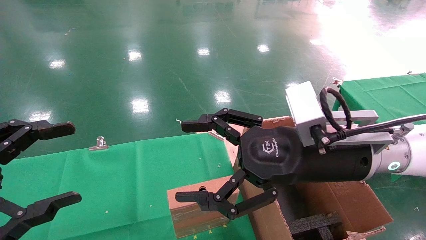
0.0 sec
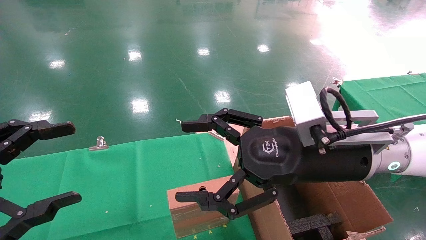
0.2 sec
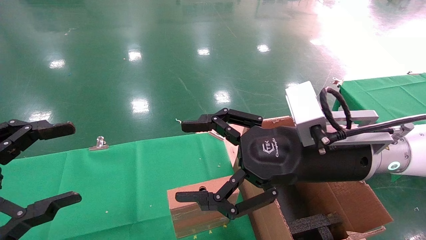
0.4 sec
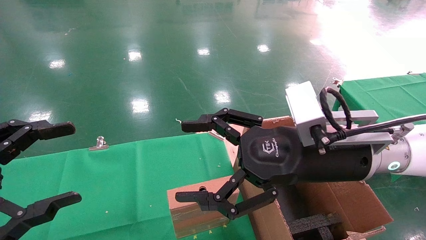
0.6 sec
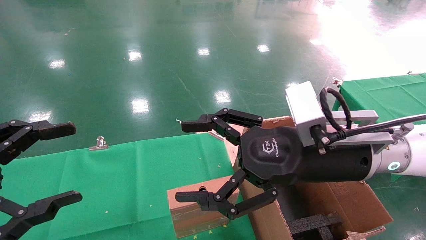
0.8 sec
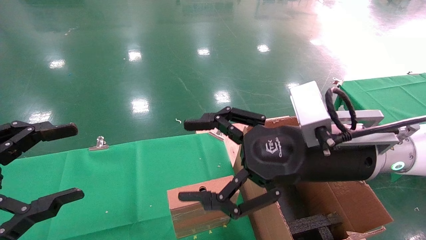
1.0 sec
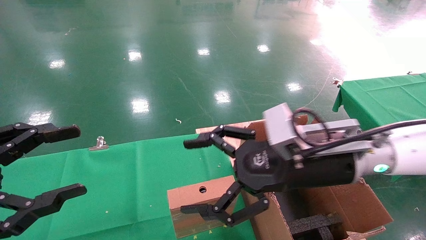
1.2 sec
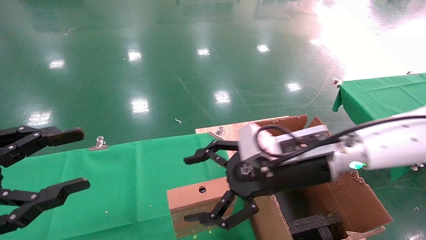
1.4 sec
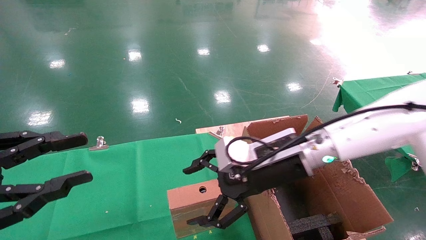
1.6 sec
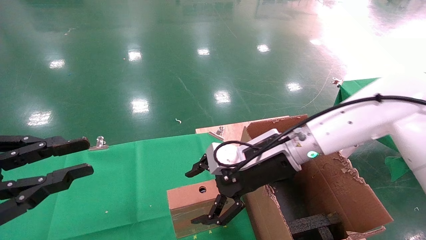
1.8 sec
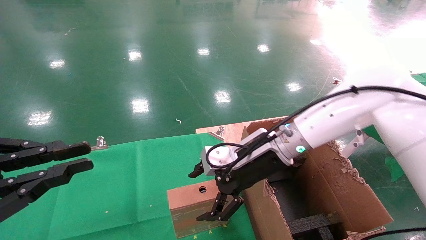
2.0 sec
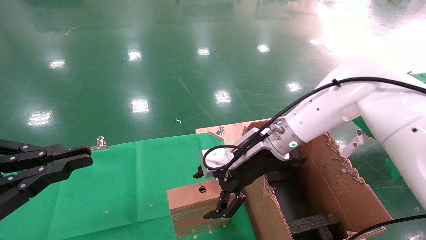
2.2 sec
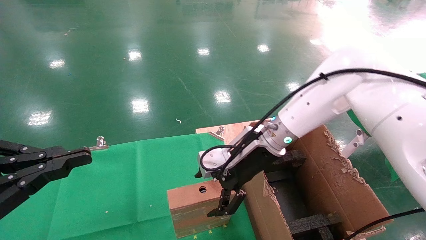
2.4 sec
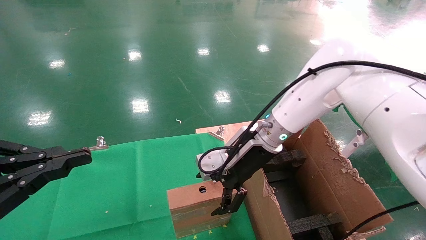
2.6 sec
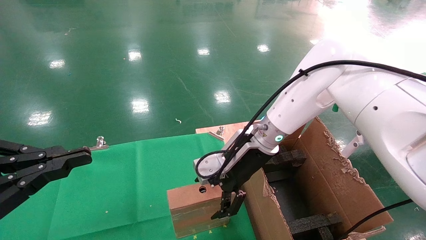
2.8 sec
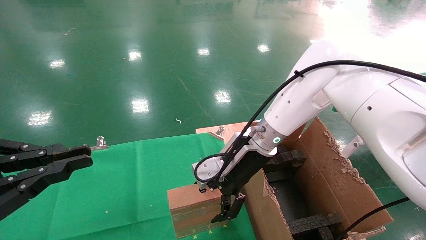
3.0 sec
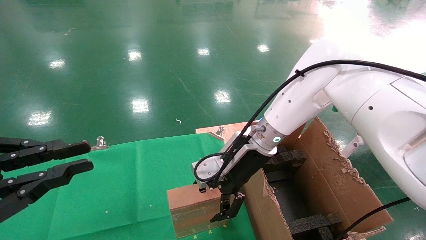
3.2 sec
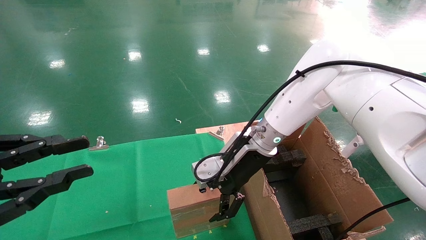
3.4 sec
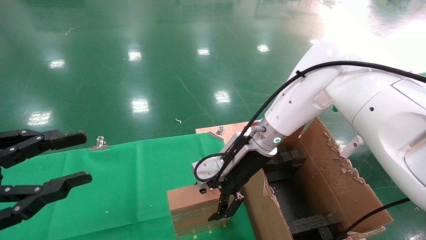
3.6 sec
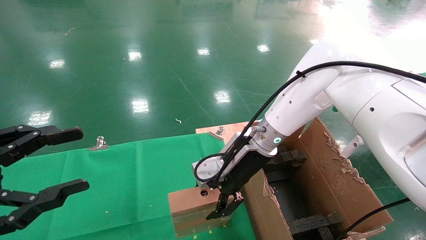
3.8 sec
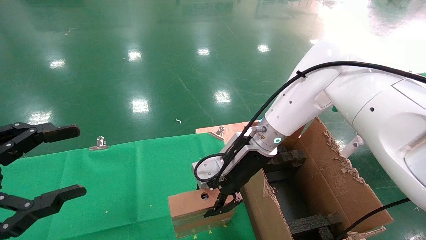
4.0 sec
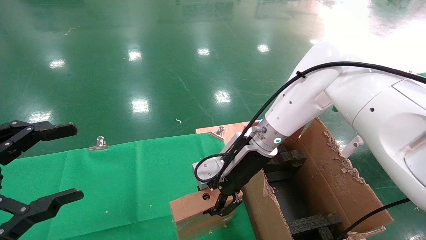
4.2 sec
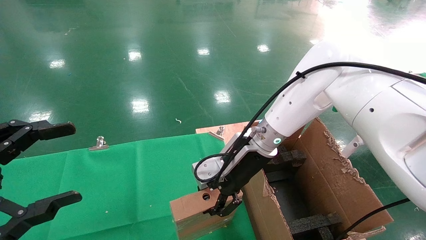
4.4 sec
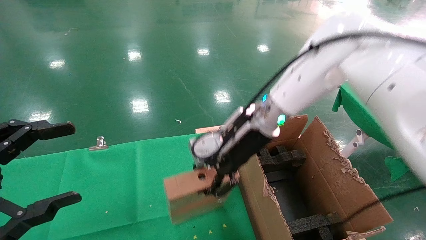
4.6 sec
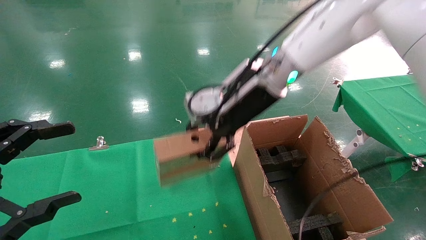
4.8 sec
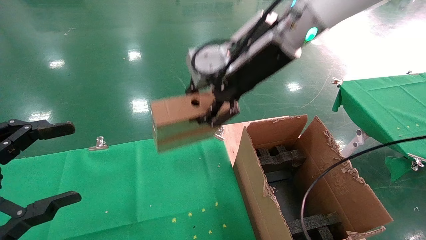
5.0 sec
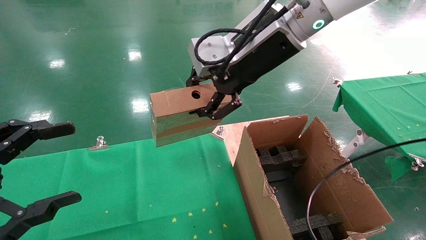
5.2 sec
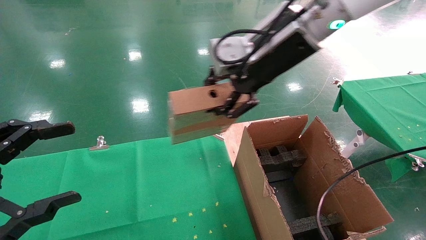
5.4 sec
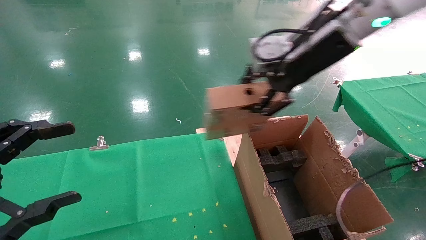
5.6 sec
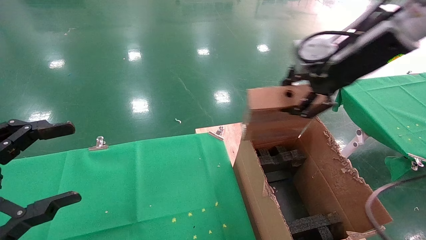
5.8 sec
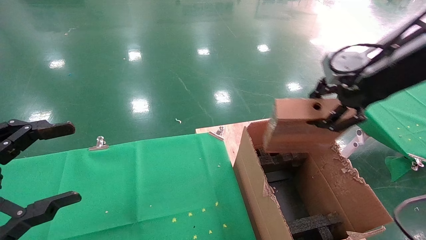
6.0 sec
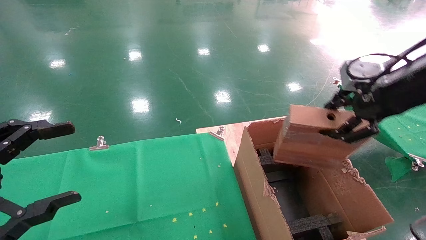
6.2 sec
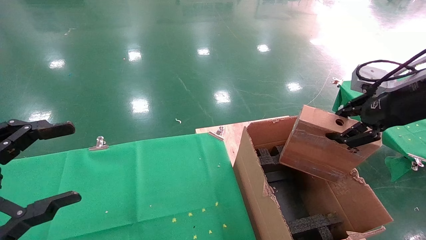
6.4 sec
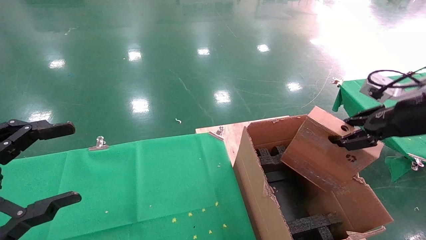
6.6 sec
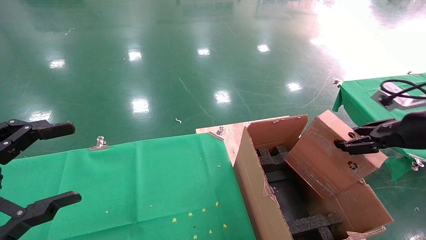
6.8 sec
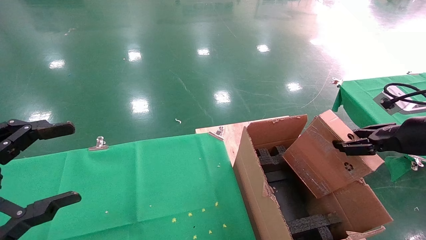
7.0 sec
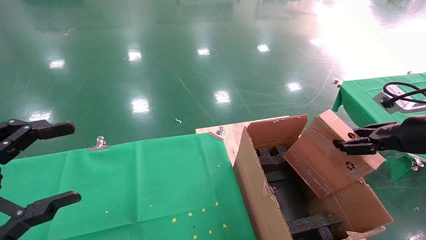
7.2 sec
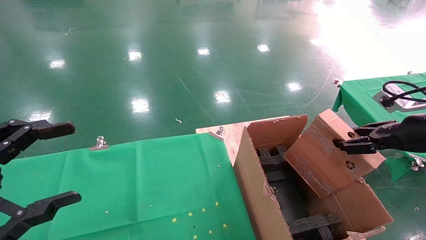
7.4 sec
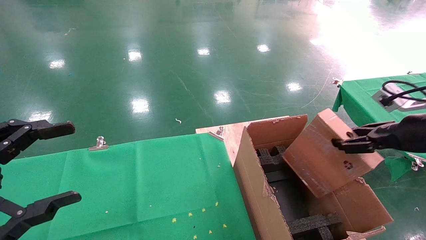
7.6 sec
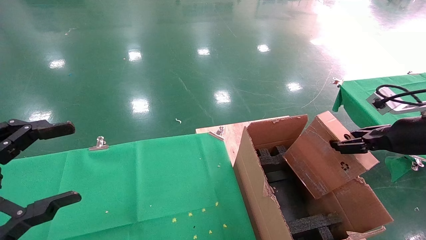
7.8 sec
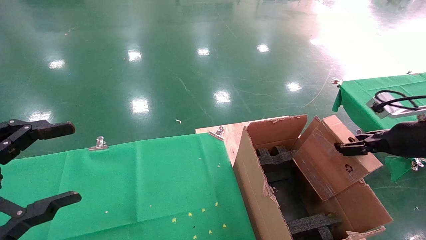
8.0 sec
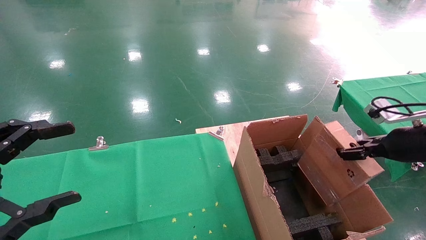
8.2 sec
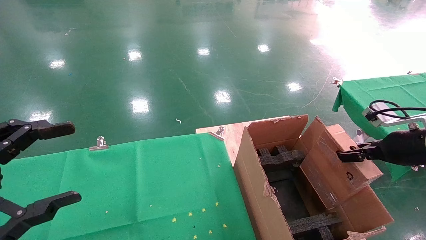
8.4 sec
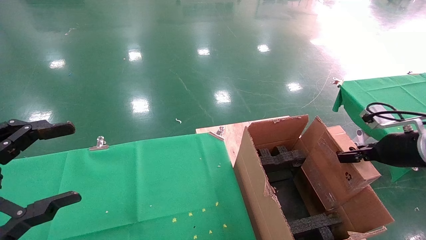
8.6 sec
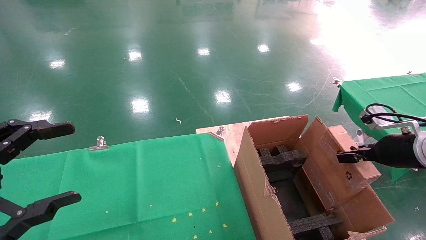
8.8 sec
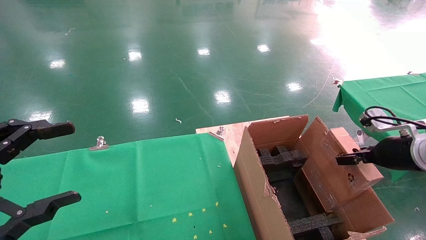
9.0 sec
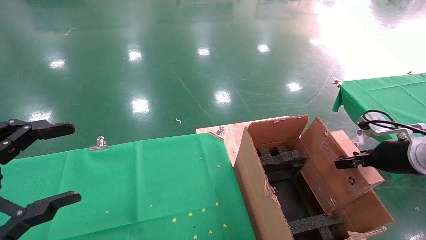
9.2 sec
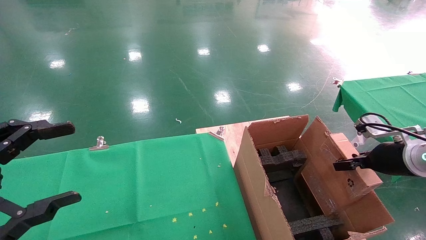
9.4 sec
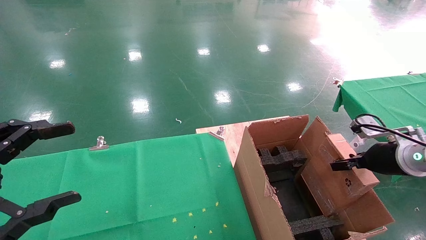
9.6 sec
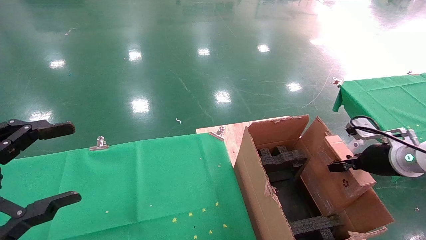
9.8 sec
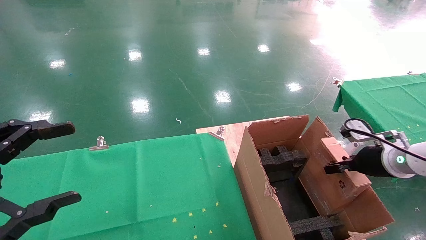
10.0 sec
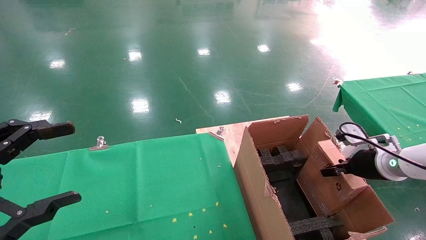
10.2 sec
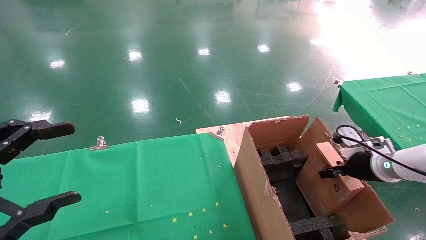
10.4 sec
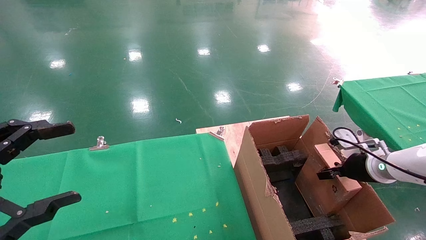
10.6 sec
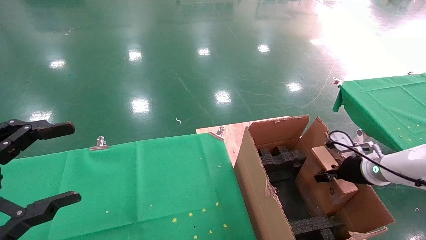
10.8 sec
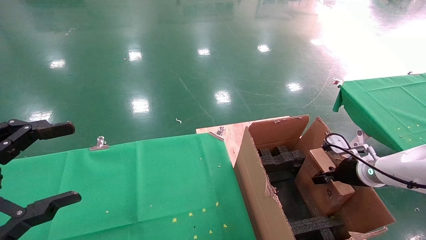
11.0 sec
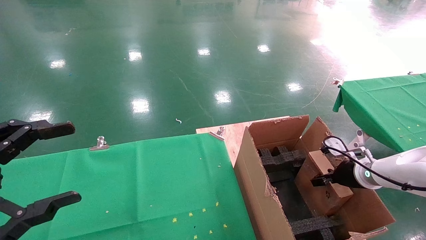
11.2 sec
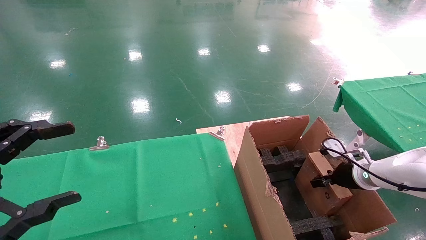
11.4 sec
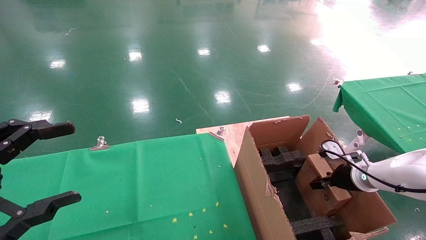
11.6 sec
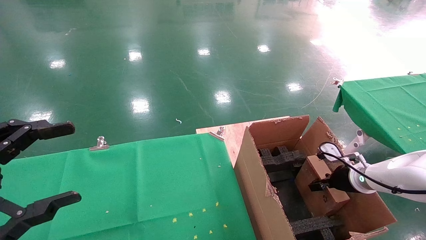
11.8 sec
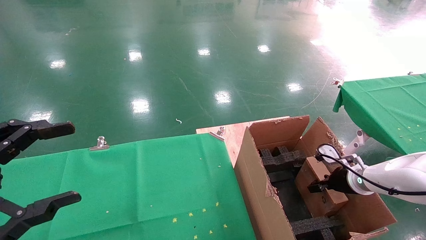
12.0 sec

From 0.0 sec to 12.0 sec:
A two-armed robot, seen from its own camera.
Task of the whole recording: using a robotic arm to pick up a cardboard box and palace it the carton.
Step, from 1.2 sec to 4.2 sec: Pick up the mouse and the power cord paper box.
From 0.0 sec to 1.6 sec: The right gripper moves forward, roughly 10 cm. Meanwhile the left gripper closes.
From 1.6 sec to 3.0 sec: The right gripper moves forward, approximately 5 cm. The left gripper closes its fingers.
From 3.0 sec to 4.4 sec: The left gripper opens up. Meanwhile the right gripper closes up.
From 4.4 sec to 6.0 sec: The right gripper is displaced to the right, upward and backward by some 30 cm.
From 6.0 sec to 7.6 sec: The right gripper shifts approximately 20 cm downward and to the right.
From 7.6 sec to 9.0 sec: The right gripper goes approximately 5 cm downward.
From 9.0 sec to 10.4 sec: The right gripper moves downward and forward, about 10 cm.
From 10.4 sec to 12.0 sec: The right gripper shifts some 5 cm downward.

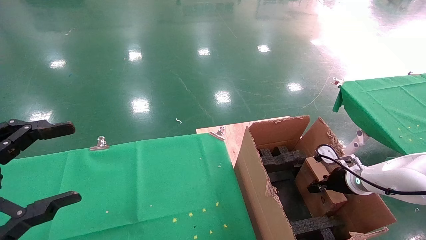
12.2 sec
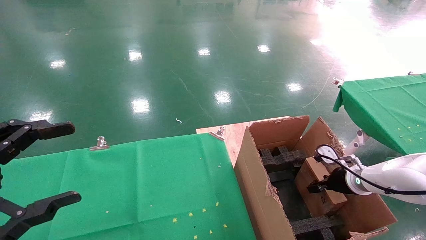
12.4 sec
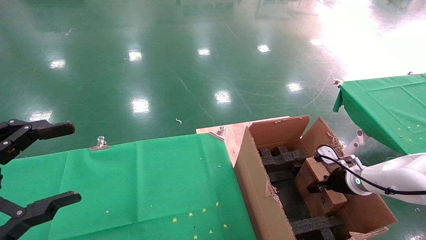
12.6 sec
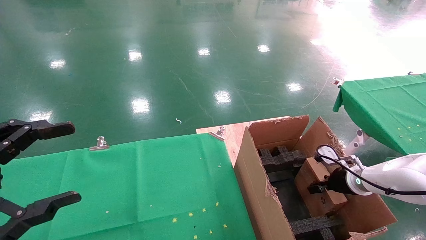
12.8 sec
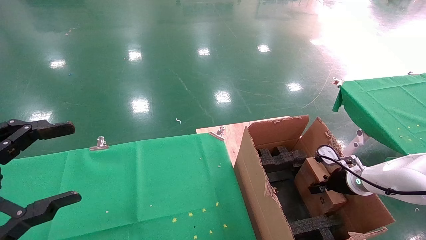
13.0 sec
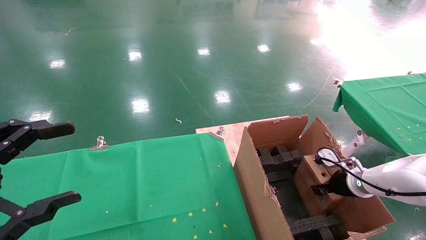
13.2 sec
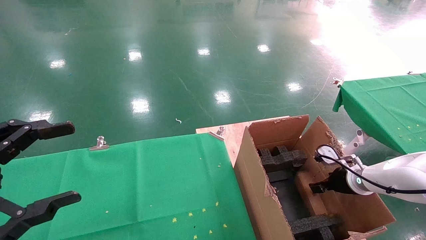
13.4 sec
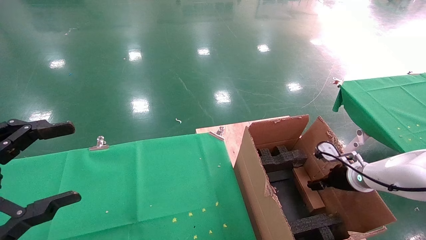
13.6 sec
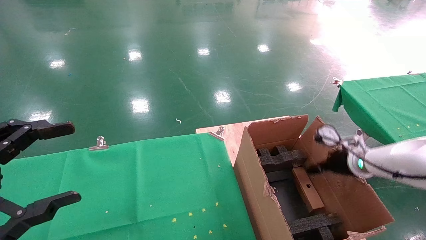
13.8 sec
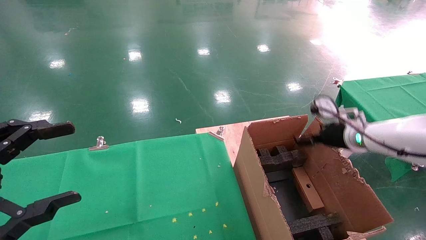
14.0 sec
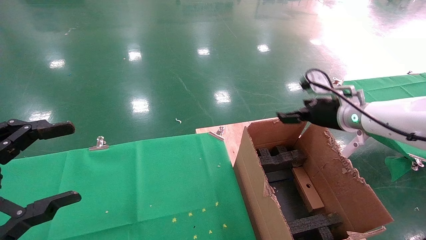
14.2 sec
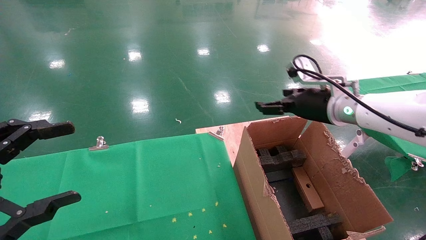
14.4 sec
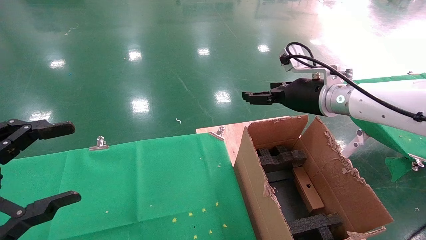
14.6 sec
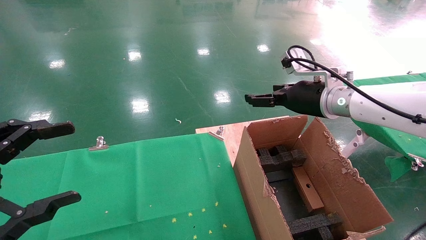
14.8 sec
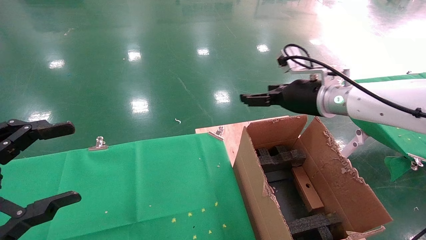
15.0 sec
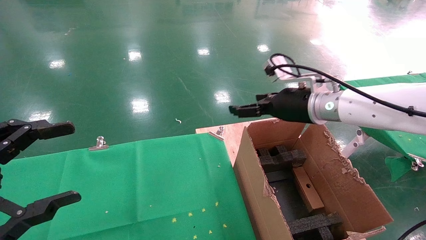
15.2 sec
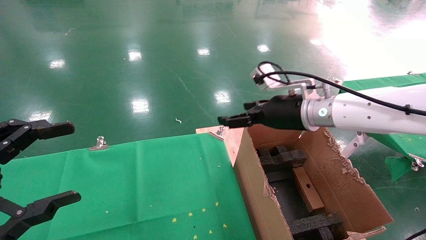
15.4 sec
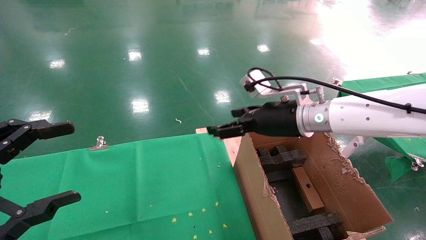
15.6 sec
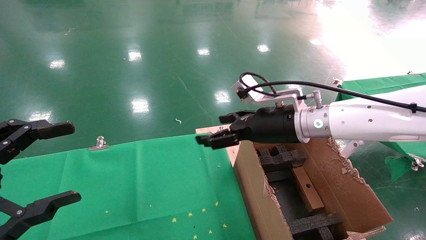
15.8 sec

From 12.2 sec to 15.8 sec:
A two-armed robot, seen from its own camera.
Task of the whole recording: using a robotic arm to pick up a cardboard box and palace it the carton.
From 12.2 sec to 14.0 sec: The right gripper is displaced upward by some 10 cm, and opens.
From 14.0 sec to 15.8 sec: The right gripper travels to the left by about 20 cm.

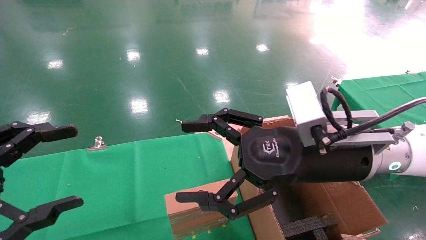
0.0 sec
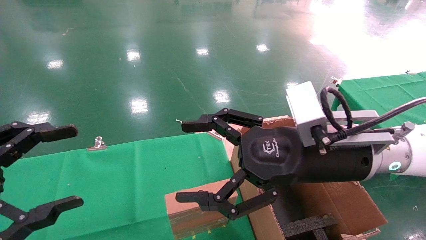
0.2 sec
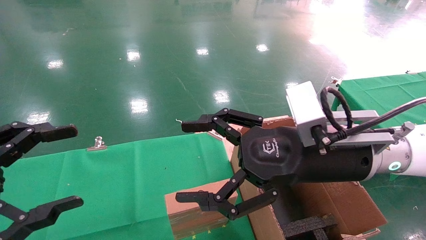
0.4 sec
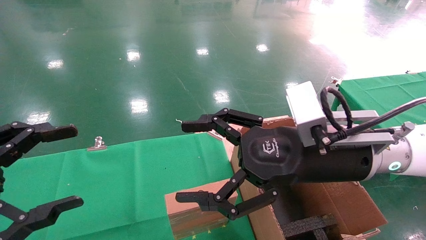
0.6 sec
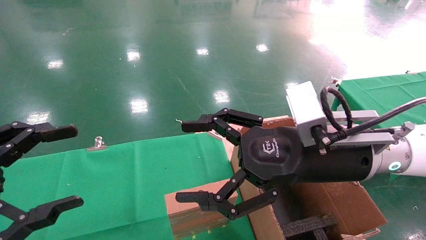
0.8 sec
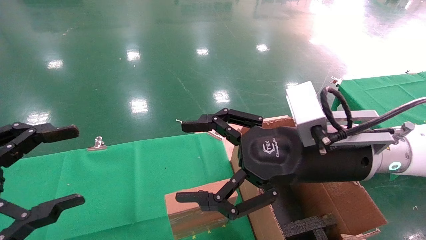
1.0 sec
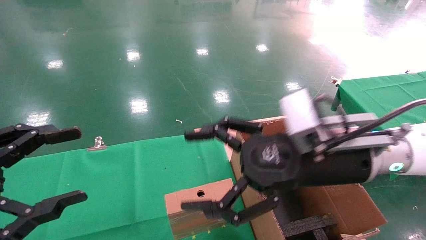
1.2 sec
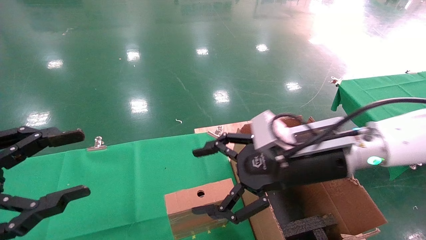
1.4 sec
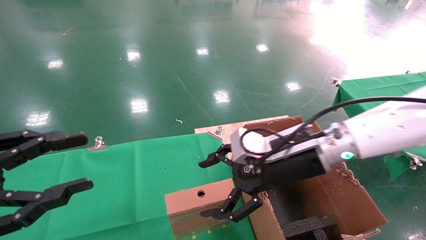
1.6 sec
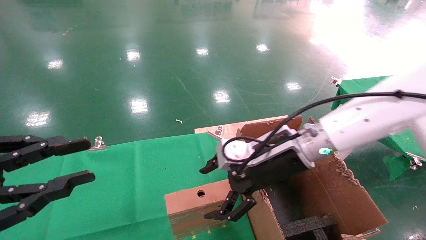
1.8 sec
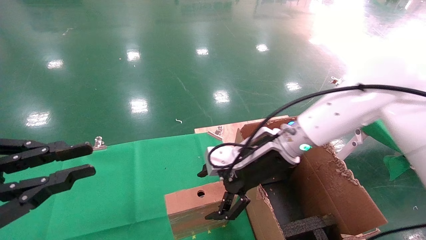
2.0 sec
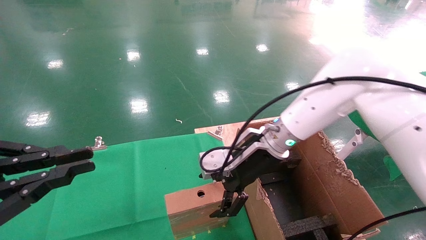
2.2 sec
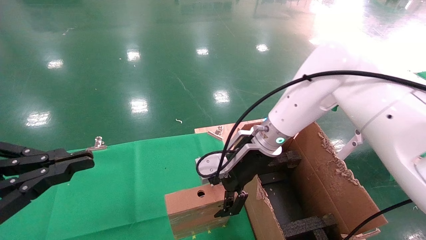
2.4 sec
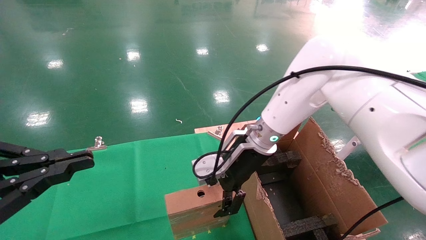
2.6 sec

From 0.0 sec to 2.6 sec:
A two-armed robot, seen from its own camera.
Task of the whole recording: using a robotic arm to pick up a cardboard box and palace it the carton.
From 0.0 sec to 1.2 sec: There are only small adjustments of the grippers.
From 1.2 sec to 2.6 sec: The right gripper shifts about 15 cm forward and to the left. The left gripper closes its fingers.
